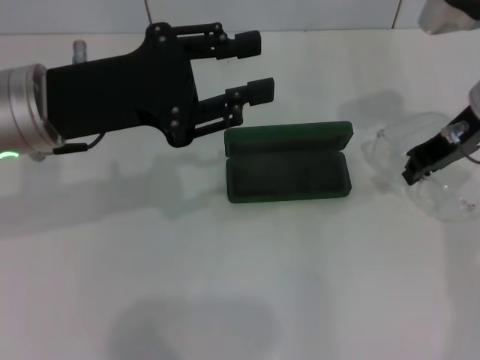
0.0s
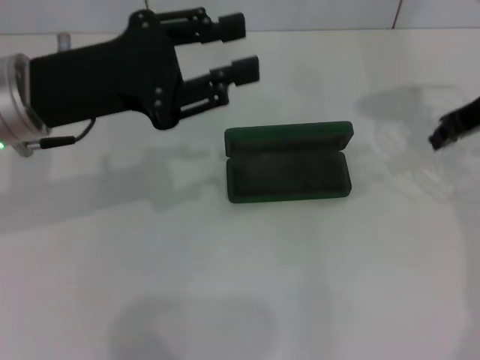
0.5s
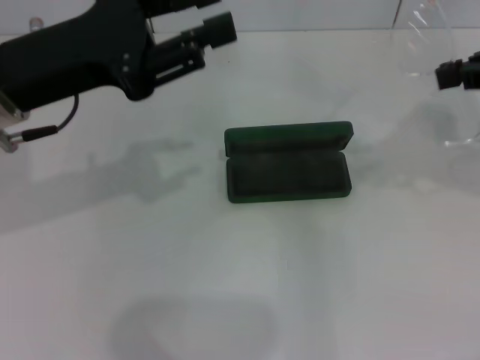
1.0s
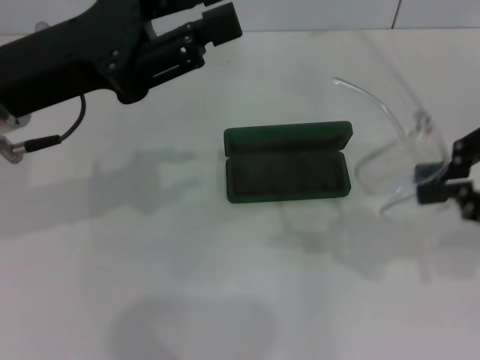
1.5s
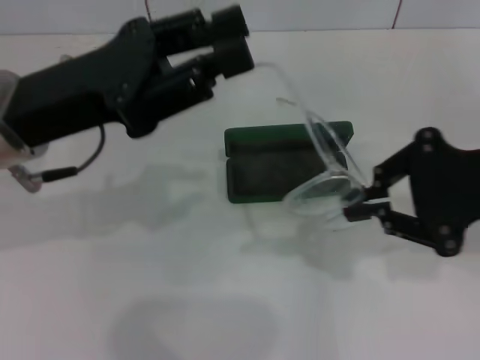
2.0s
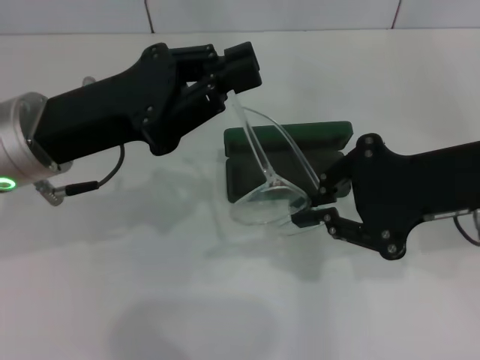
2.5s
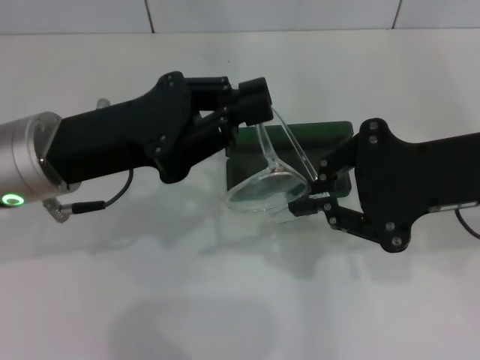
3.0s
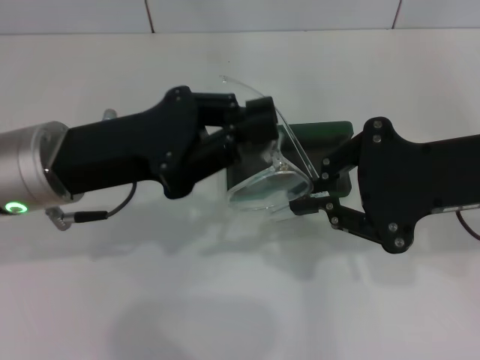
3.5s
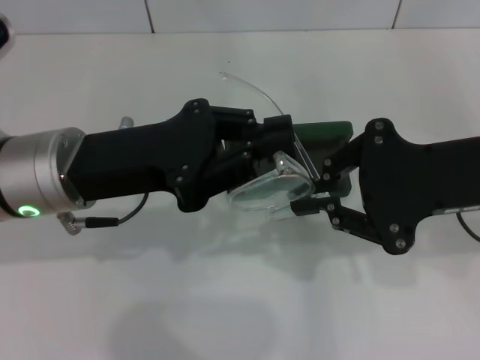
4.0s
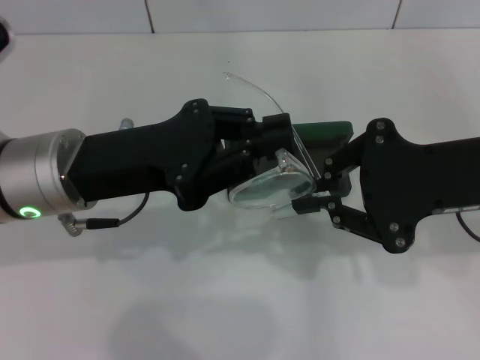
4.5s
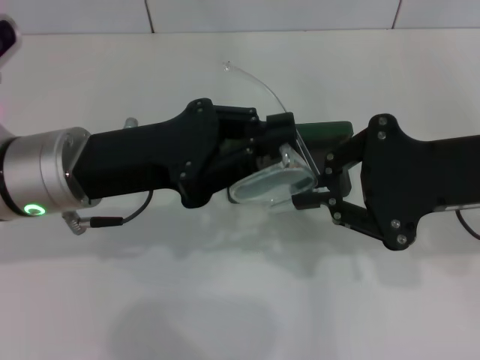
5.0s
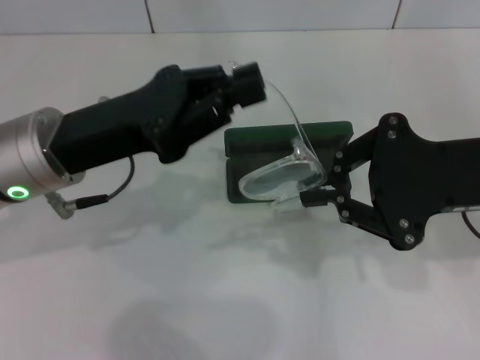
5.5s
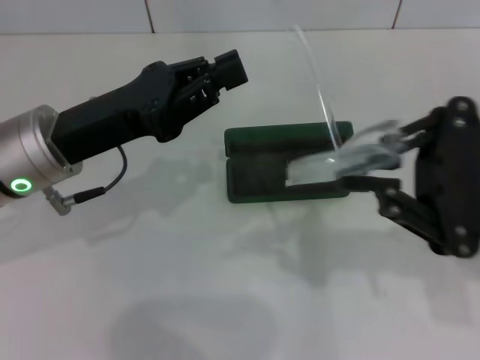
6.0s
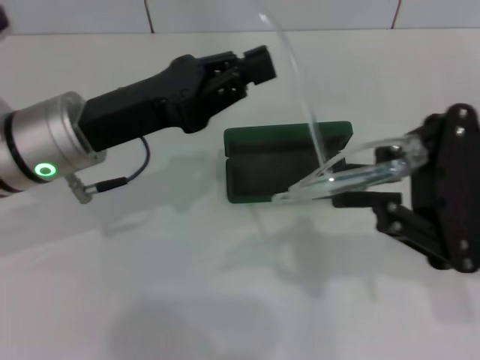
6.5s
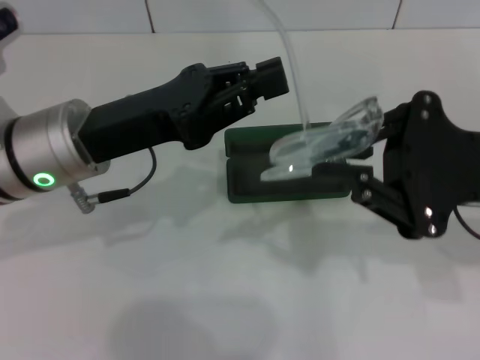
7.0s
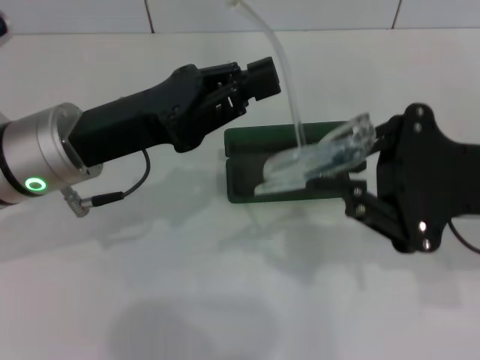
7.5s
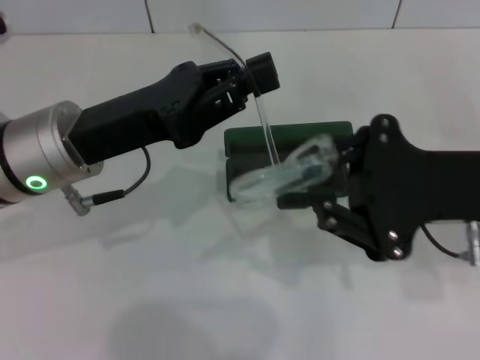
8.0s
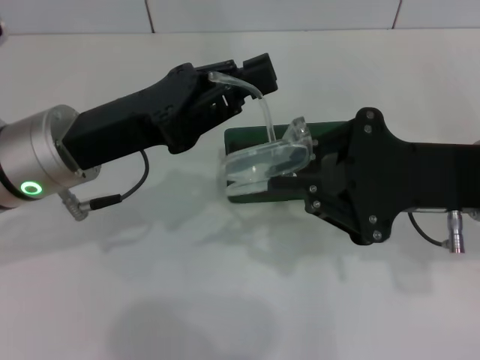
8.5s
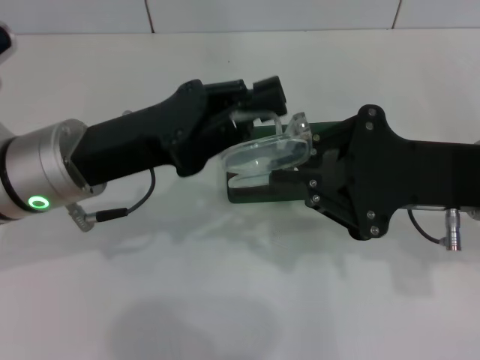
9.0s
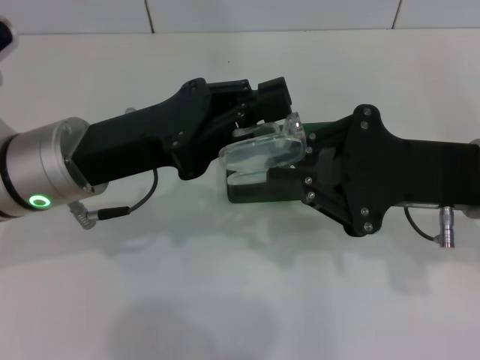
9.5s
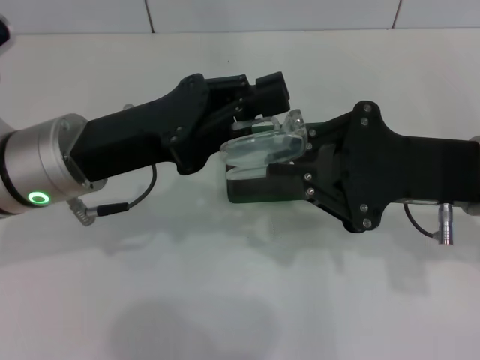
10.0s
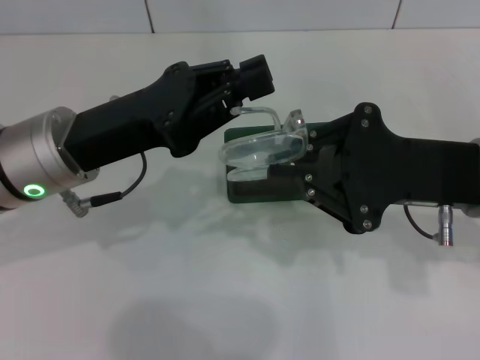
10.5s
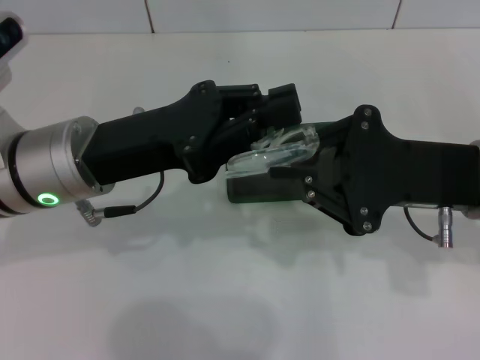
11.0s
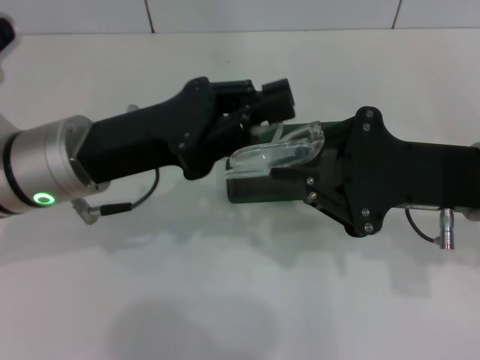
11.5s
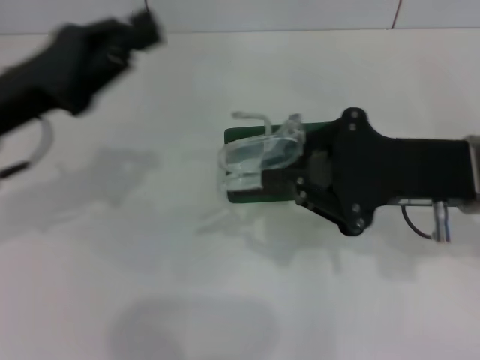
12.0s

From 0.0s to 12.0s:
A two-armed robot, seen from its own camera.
Step, from 0.0s to 9.5s: Fold the frame with your left hand.
From 0.0s to 2.0s: The right gripper goes some 15 cm backward.
From 2.0s to 4.0s: The left gripper closes up.
From 6.0s to 8.0s: The right gripper ends up about 5 cm from where it was.
From 10.0s to 12.0s: The left gripper moves to the left, about 10 cm.

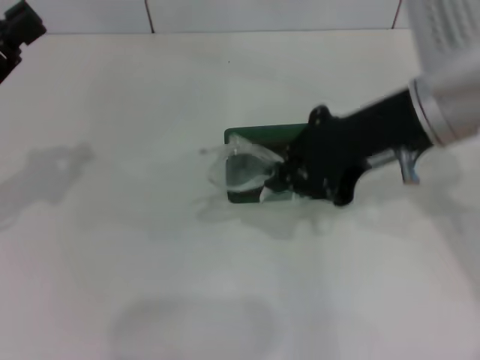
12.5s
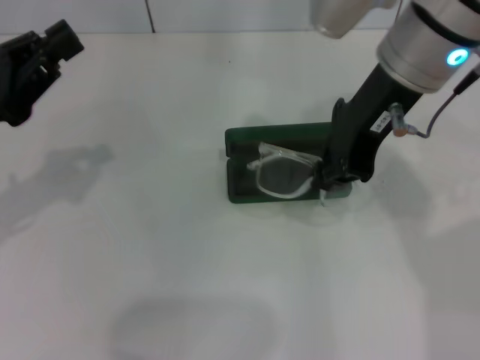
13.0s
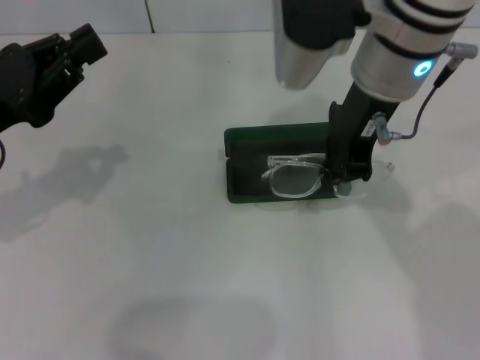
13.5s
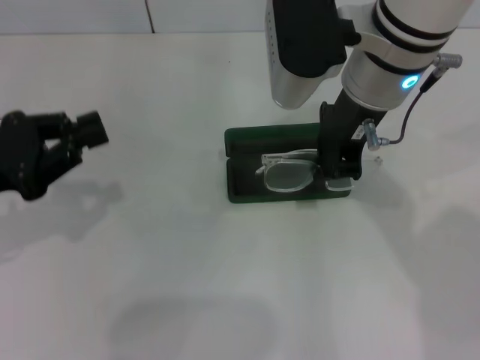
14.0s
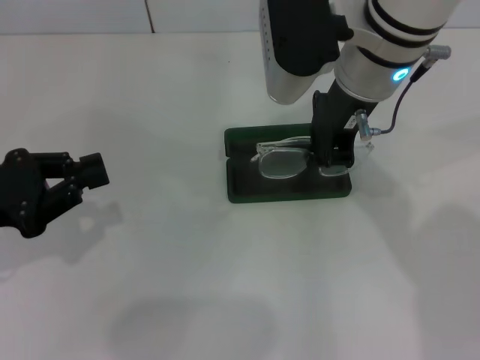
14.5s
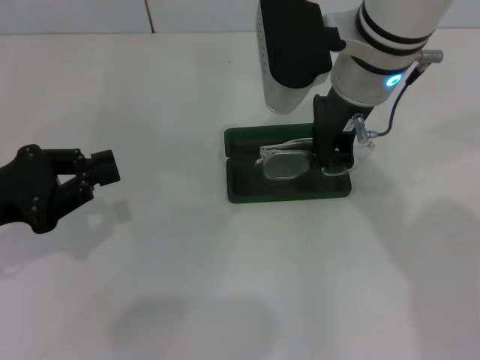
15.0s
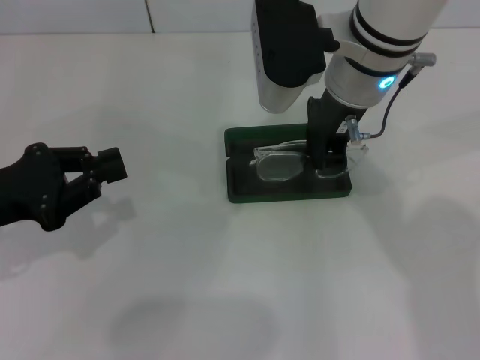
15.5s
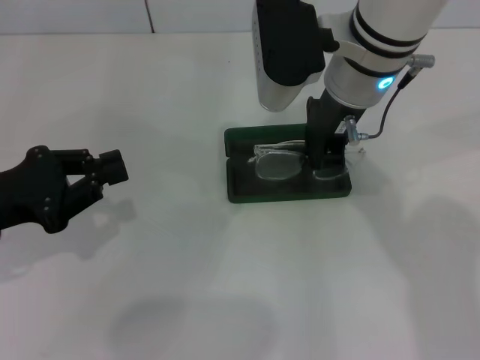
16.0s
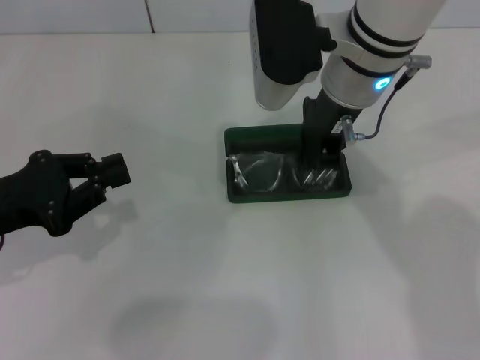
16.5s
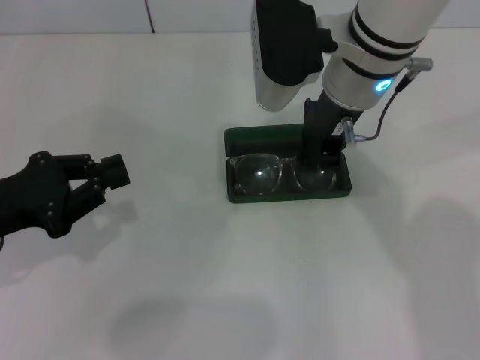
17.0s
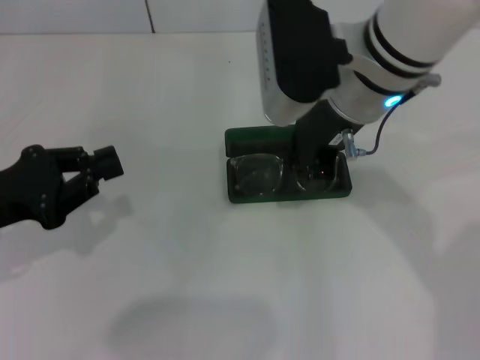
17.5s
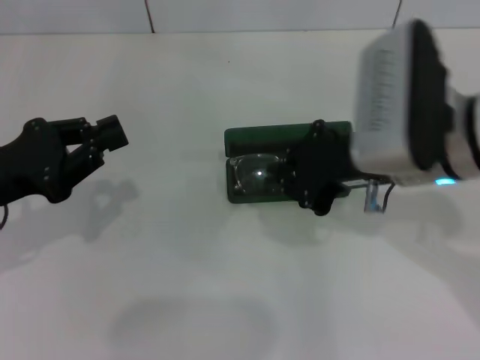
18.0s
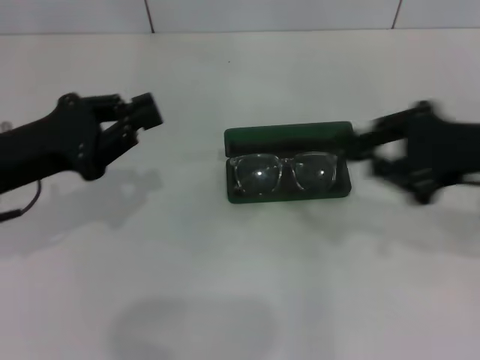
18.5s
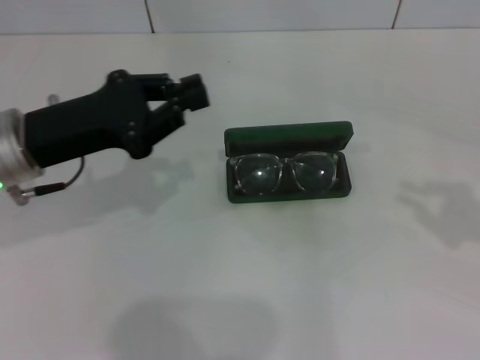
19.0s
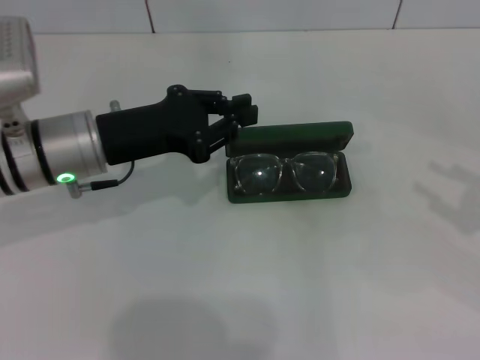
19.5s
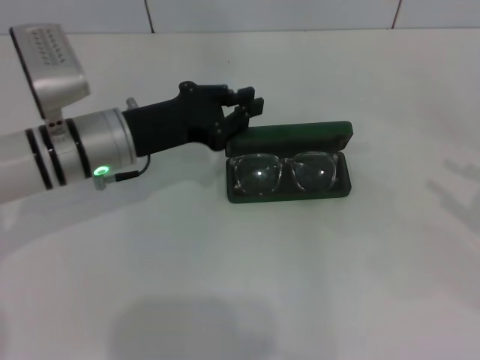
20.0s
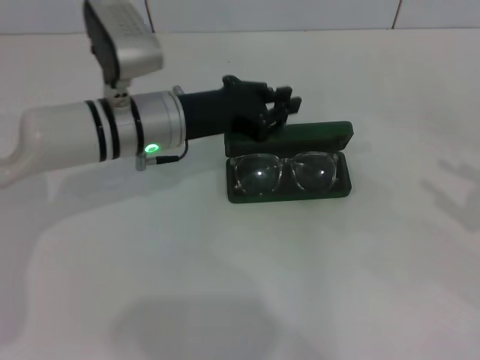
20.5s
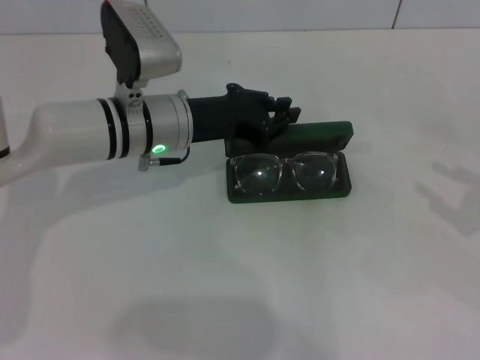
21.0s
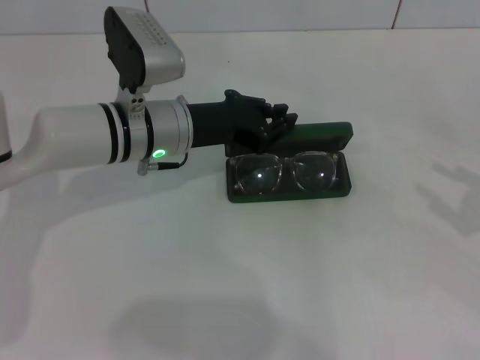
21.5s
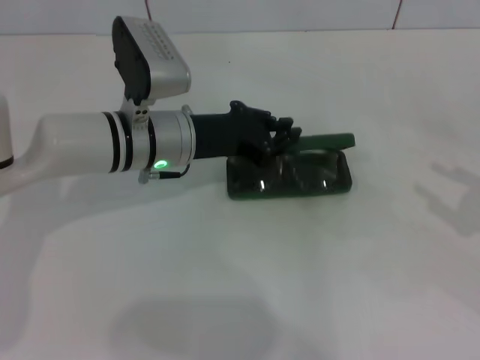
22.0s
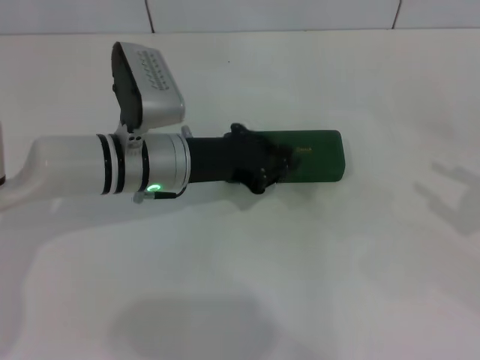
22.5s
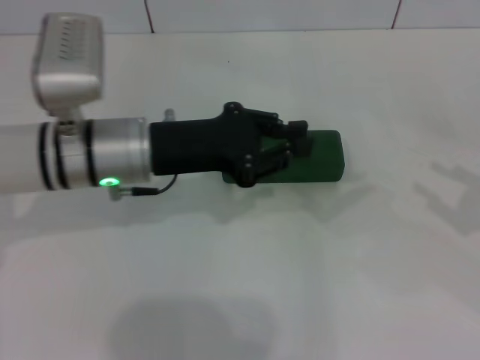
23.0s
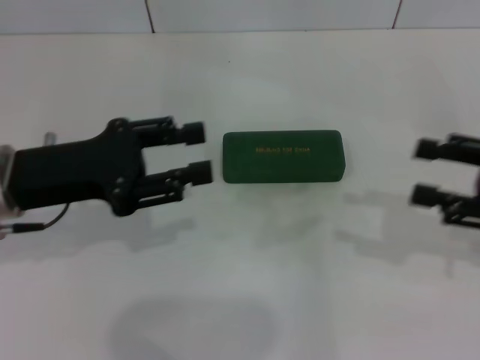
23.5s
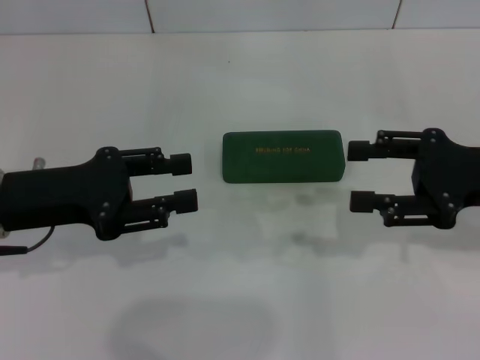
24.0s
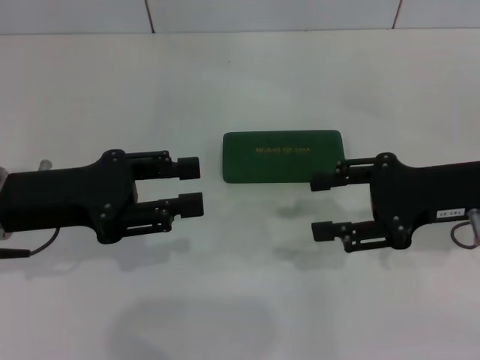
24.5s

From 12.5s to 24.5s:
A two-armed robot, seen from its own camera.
Step, from 12.5s to 16.5s: Put the glasses into the case with your right hand.
Step, from 17.0s to 22.5s: Close the glasses case with your left hand.
From 12.5s to 14.5s: The right gripper travels to the left and forward by approximately 10 cm.
From 14.5s to 16.5s: The grippers make only small movements.
From 16.5s to 18.5s: The right gripper goes about 20 cm to the right and backward.
From 18.5s to 20.5s: The right gripper goes about 15 cm to the right, and opens; the left gripper travels to the right and forward by approximately 15 cm.
From 20.5s to 22.5s: There are only small adjustments of the grippers.
From 22.5s to 24.5s: The left gripper heads to the left, backward and upward, covering roughly 15 cm, and opens; the right gripper travels to the left and forward by roughly 15 cm.

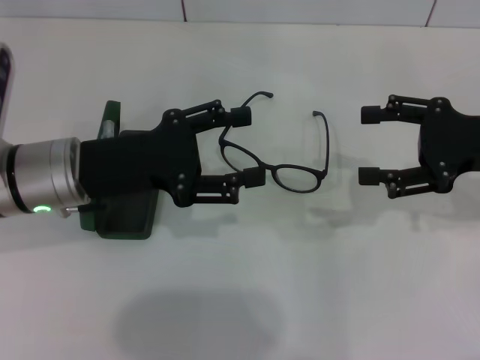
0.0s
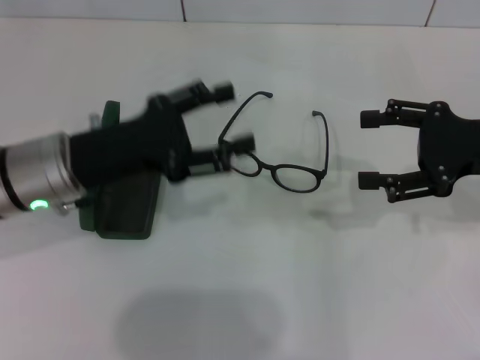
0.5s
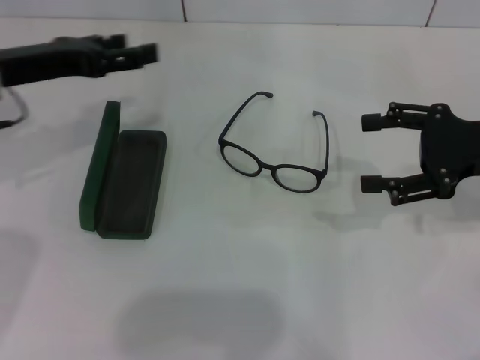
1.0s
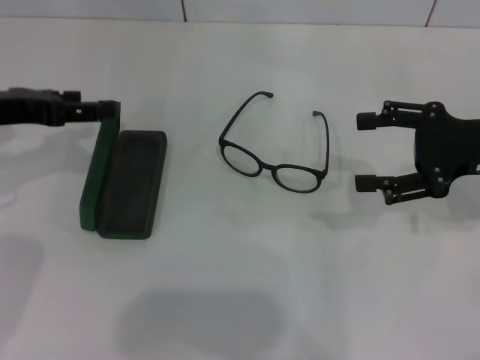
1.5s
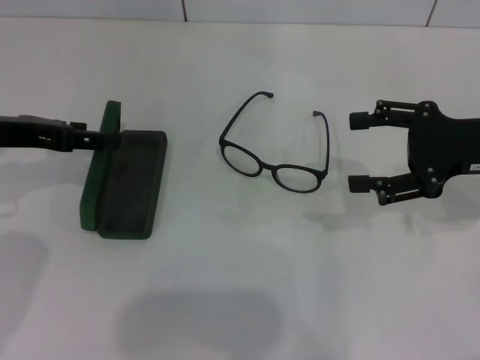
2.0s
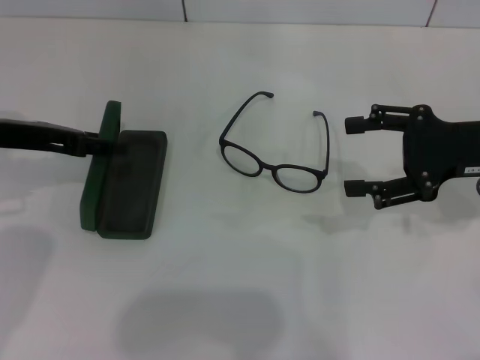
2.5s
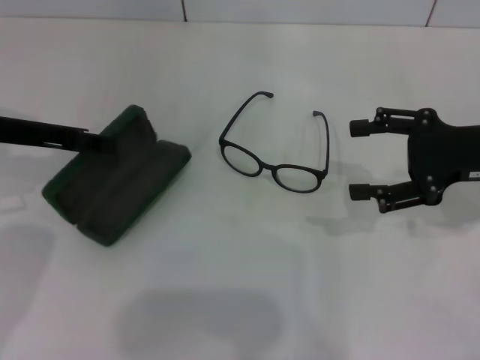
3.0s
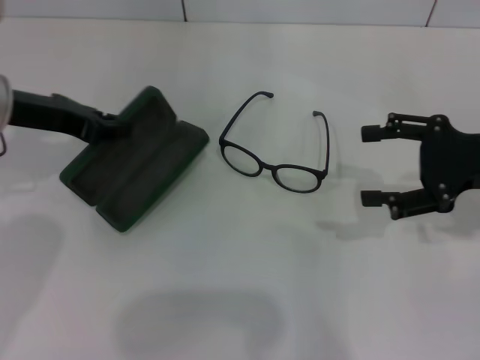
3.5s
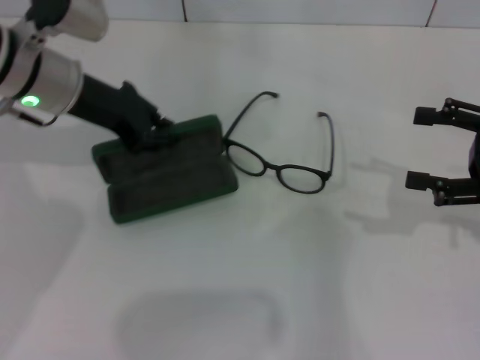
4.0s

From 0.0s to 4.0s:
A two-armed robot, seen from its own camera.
Step, from 0.0s to 3.0s: Grab the glasses case with your left hand.
From 0.0s to 2.0s: The left gripper heads to the left, covering roughly 10 cm.
From 2.0s to 4.0s: The right gripper heads to the right, covering approximately 5 cm. The left gripper travels to the right and forward by about 10 cm, and closes.
